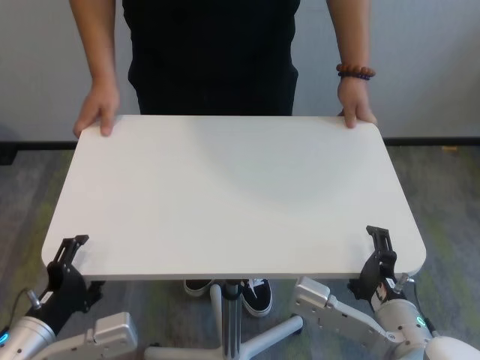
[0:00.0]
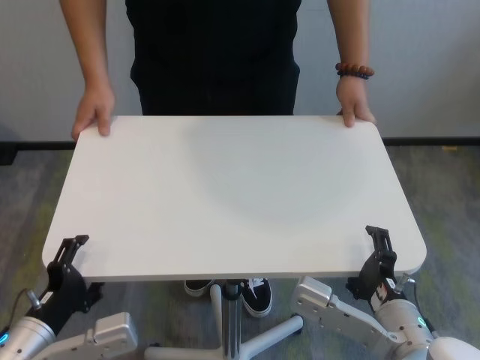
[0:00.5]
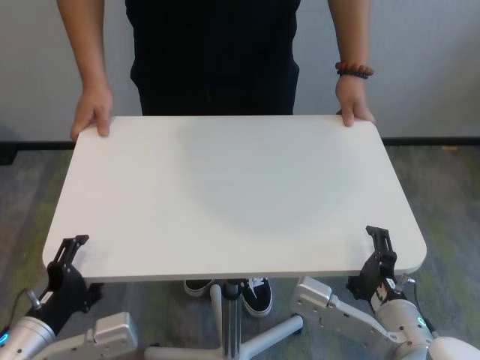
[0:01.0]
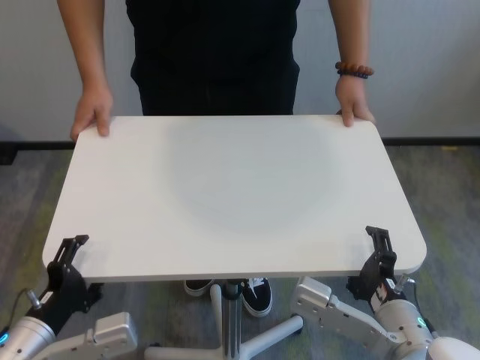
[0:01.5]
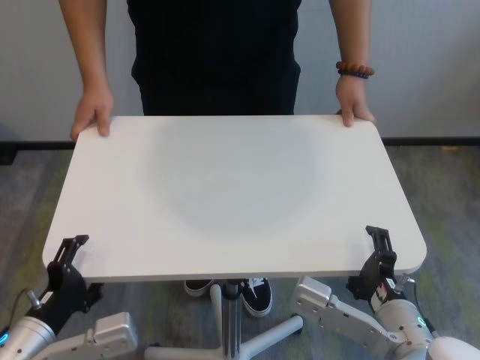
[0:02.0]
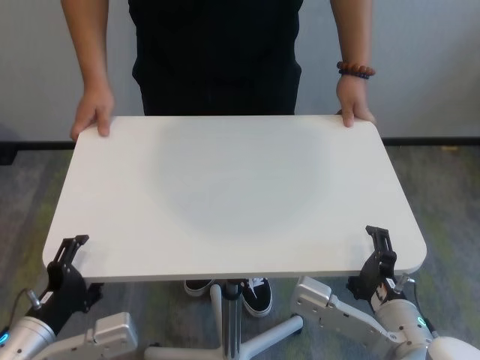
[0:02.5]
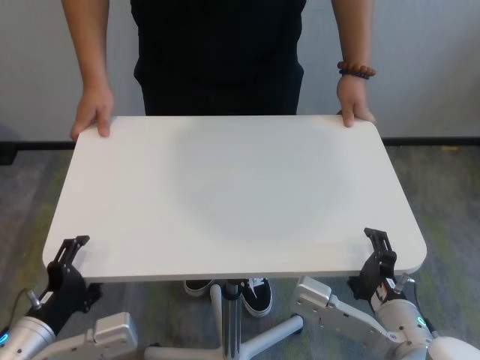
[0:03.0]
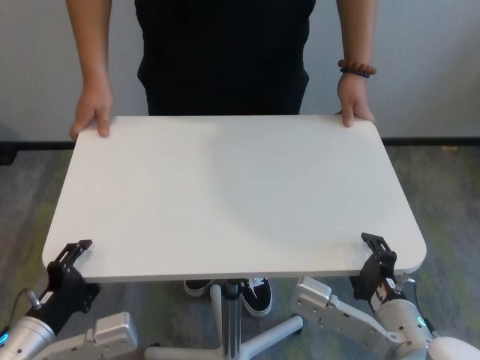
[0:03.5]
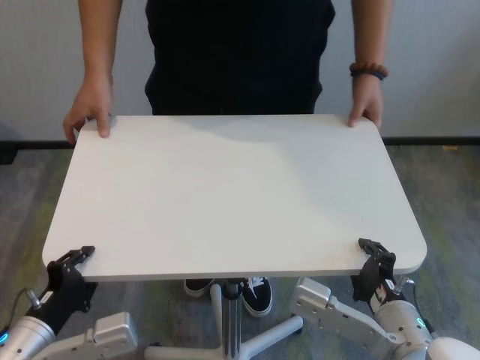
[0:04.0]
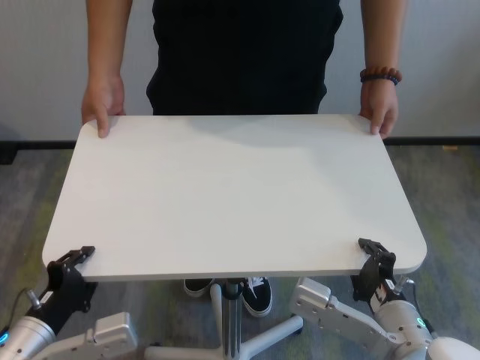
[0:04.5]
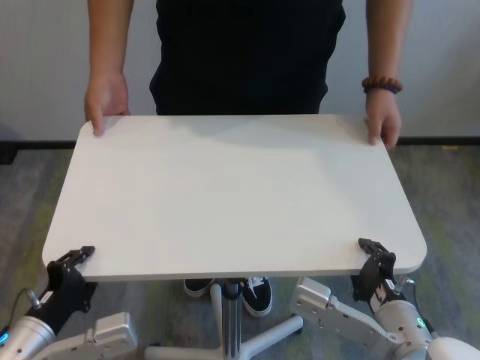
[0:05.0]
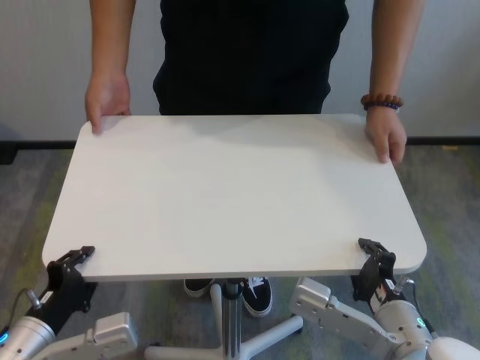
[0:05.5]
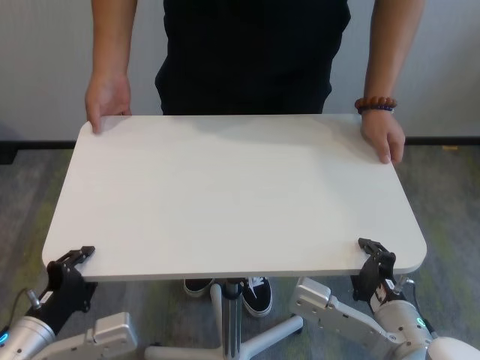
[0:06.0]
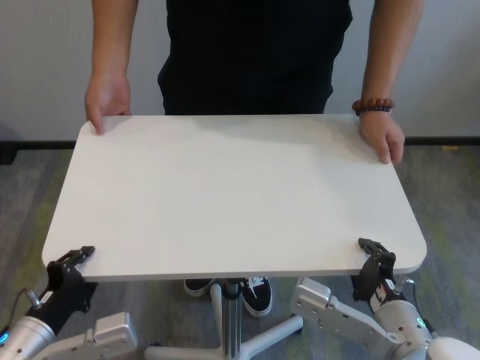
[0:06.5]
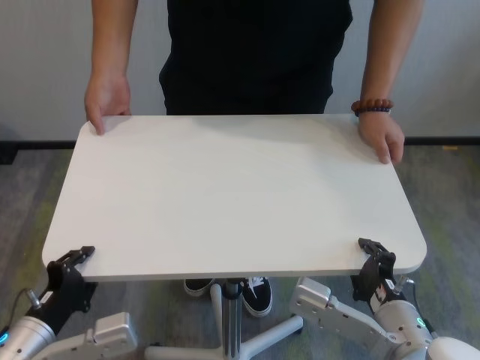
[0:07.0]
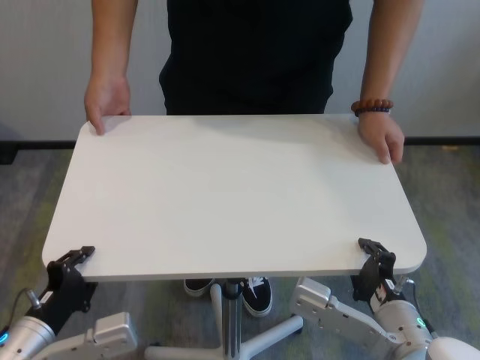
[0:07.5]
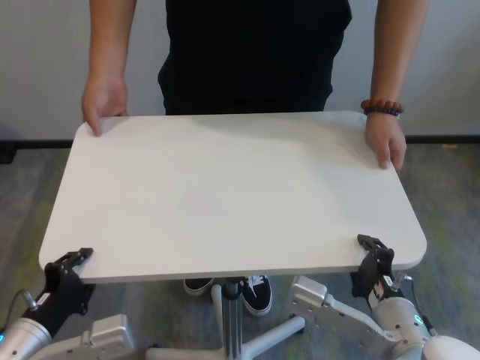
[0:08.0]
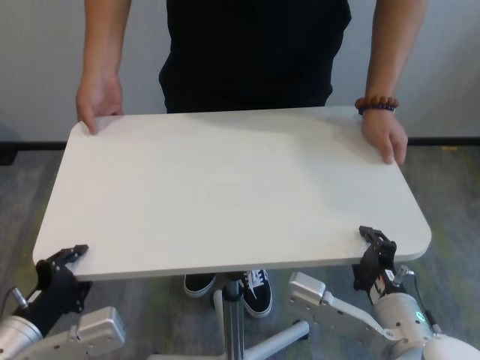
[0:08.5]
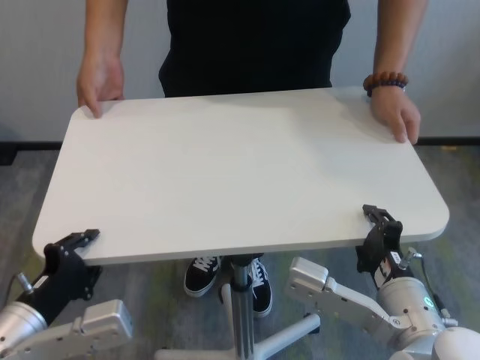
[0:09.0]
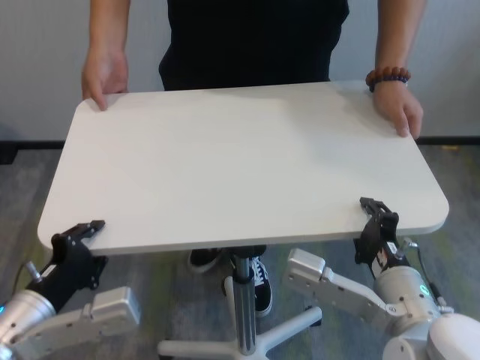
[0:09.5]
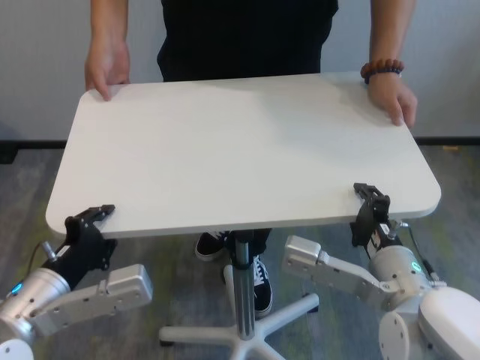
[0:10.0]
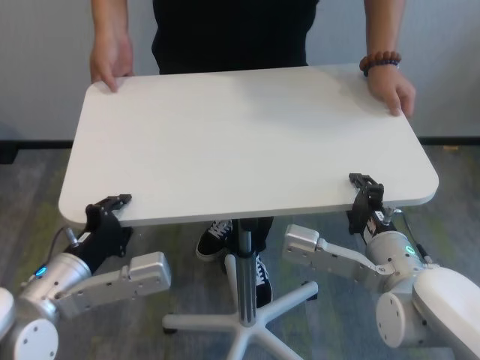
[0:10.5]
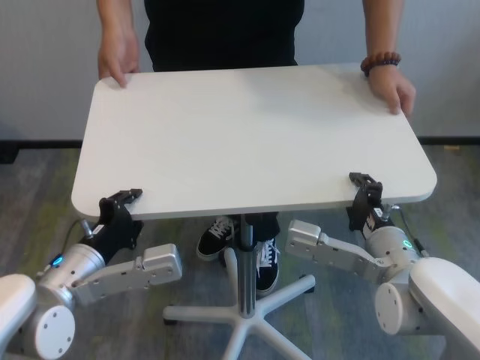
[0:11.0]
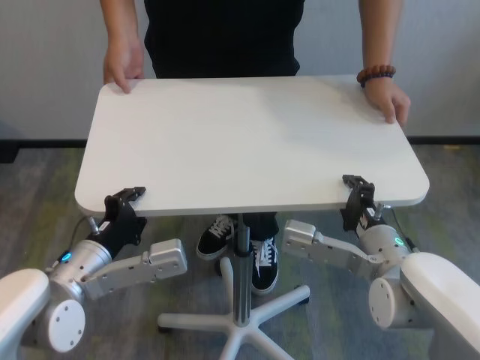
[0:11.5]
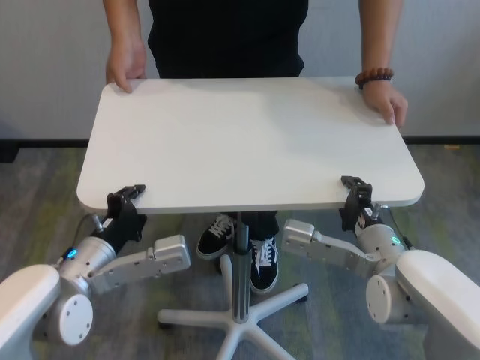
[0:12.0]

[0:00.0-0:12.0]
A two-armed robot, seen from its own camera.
Task of the whole recording: human machine collaborative table moving.
Step, 0:00.0 to 0:07.5: Grasp the table with both grippers.

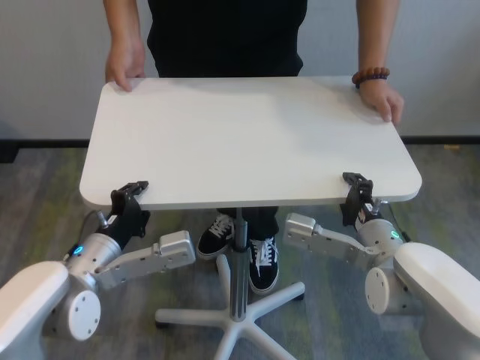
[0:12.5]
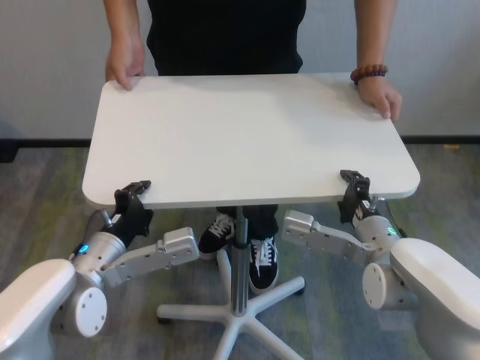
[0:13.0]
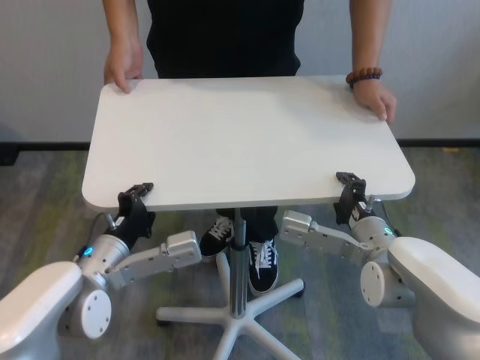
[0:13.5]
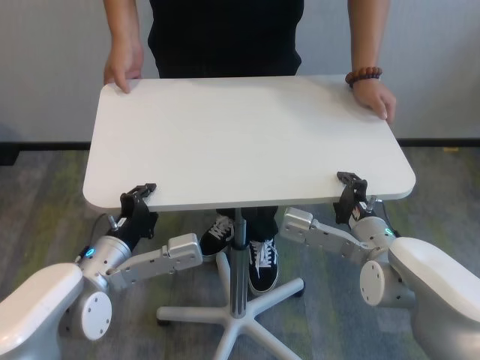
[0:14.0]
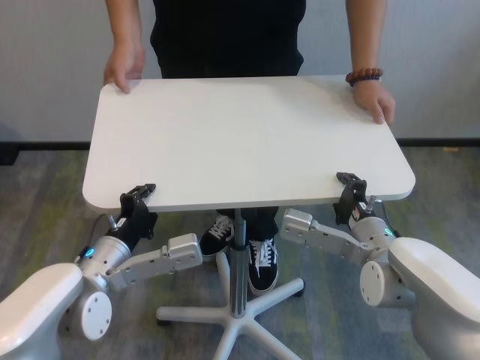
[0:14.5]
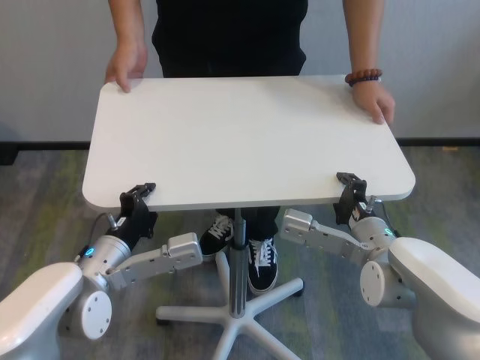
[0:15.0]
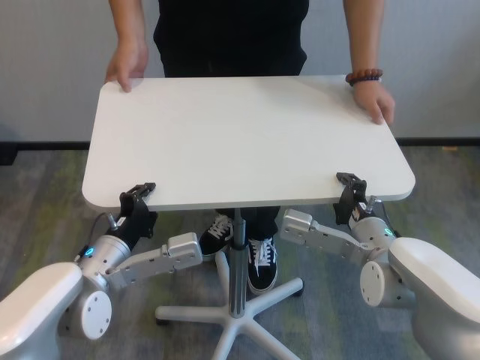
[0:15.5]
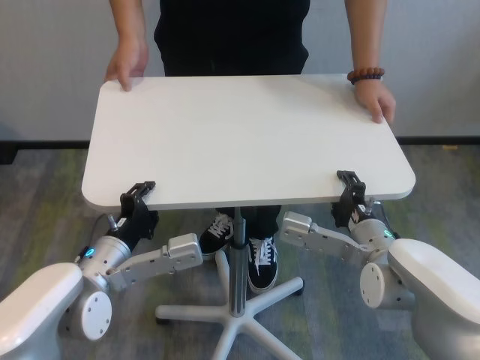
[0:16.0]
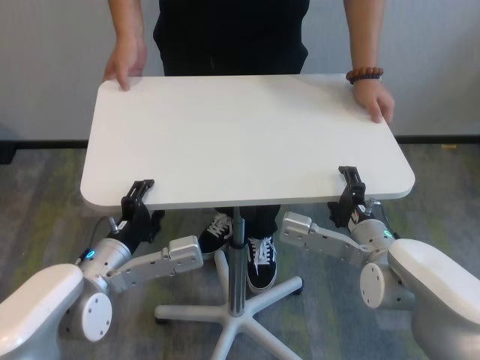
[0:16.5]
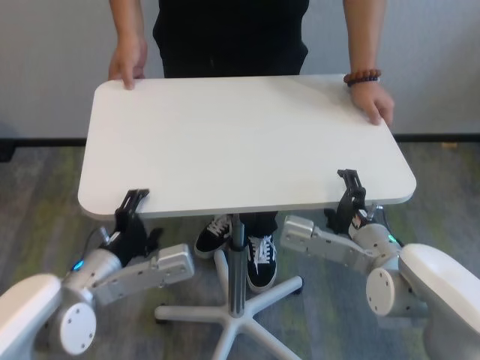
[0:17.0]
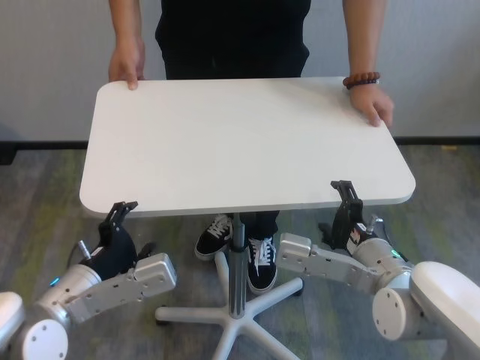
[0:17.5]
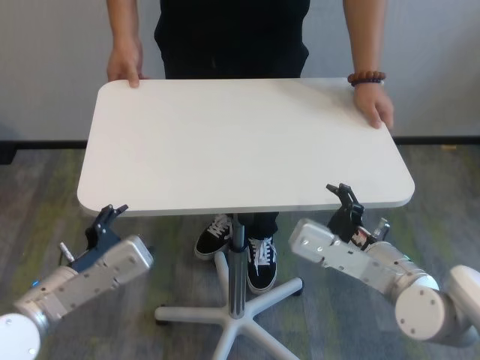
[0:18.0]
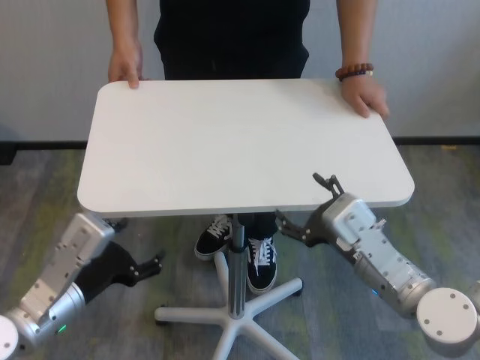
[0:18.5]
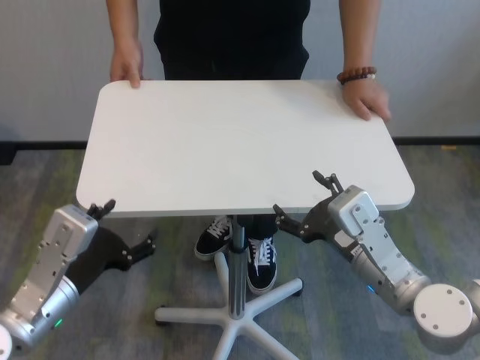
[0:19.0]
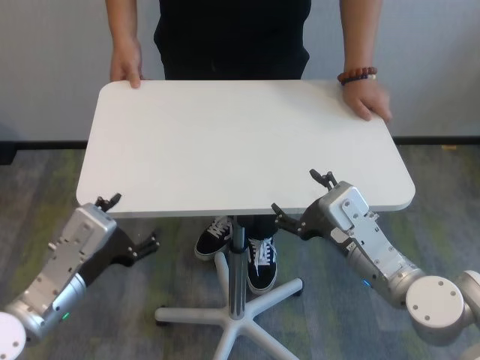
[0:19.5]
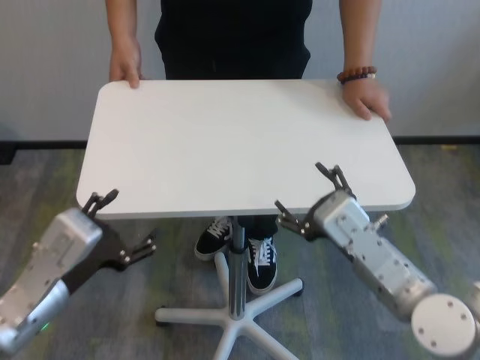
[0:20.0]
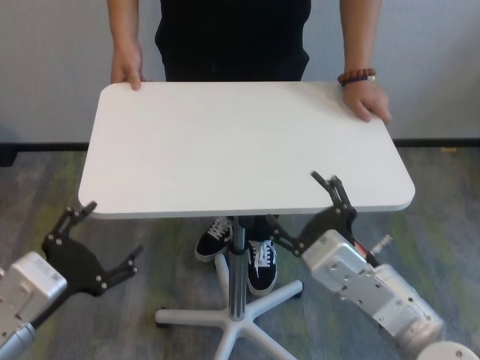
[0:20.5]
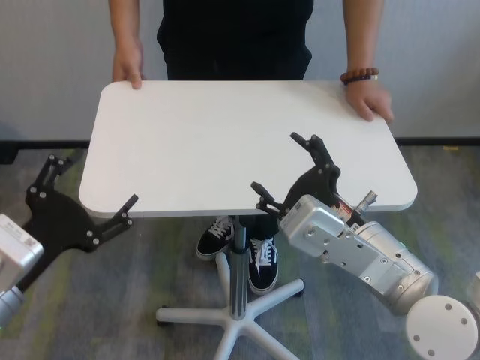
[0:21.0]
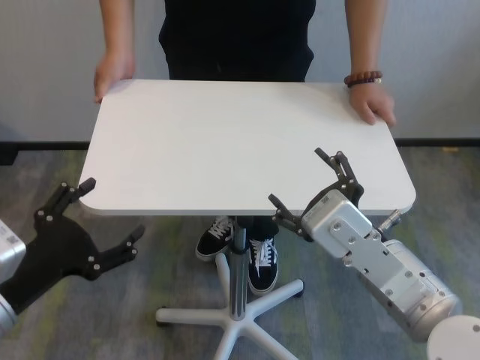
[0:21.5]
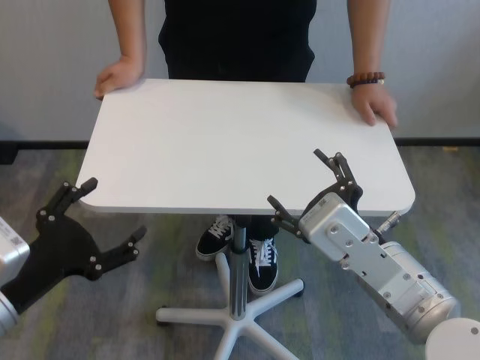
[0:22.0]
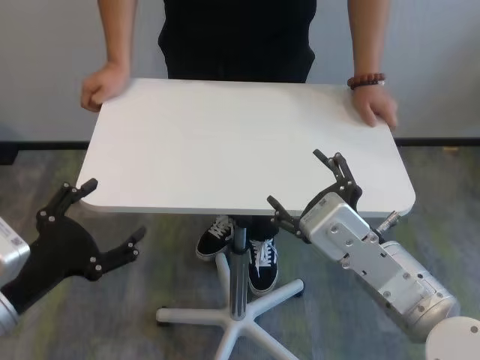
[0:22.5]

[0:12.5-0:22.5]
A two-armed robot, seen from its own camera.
Task of the whole recording: human machine collaborative table moving.
Step, 0:12.5 to 0:16.5: Move the table forward with both grippers.
